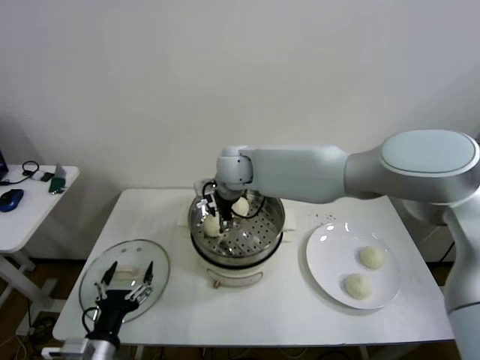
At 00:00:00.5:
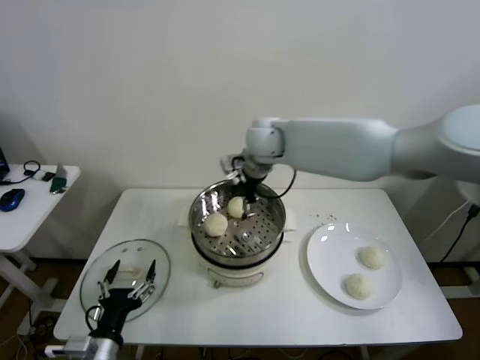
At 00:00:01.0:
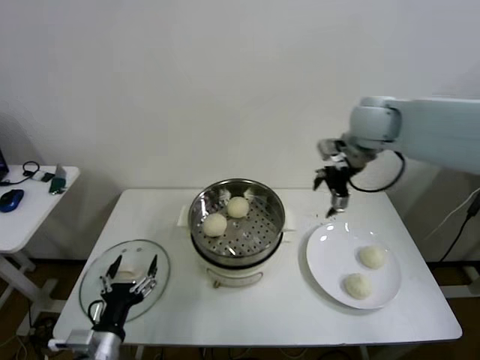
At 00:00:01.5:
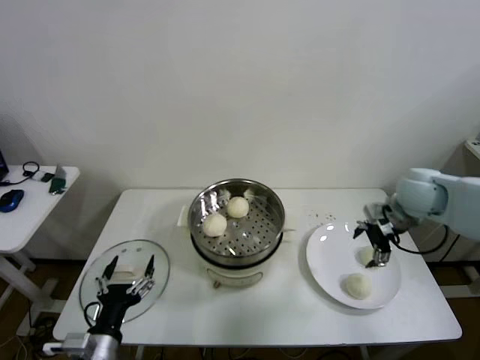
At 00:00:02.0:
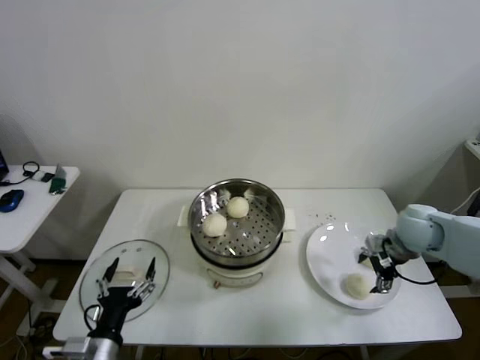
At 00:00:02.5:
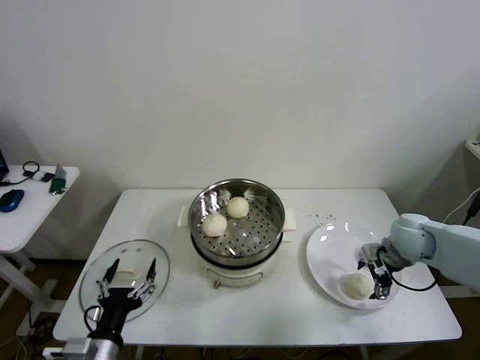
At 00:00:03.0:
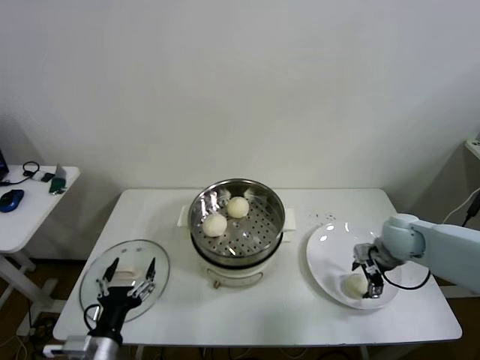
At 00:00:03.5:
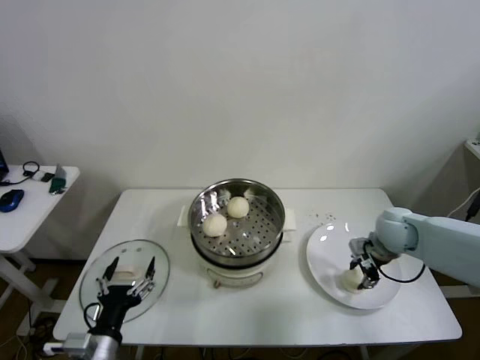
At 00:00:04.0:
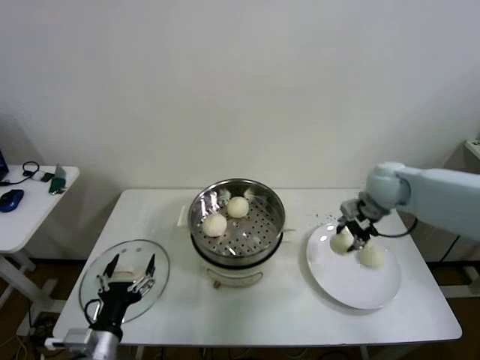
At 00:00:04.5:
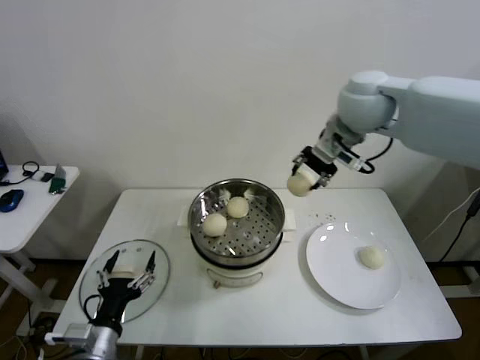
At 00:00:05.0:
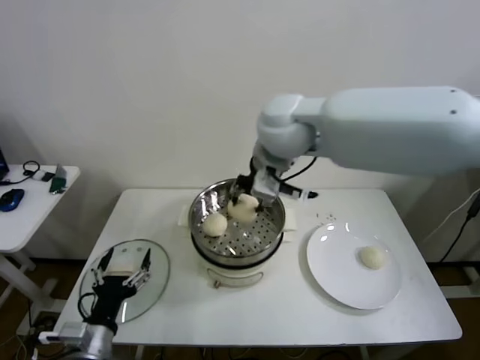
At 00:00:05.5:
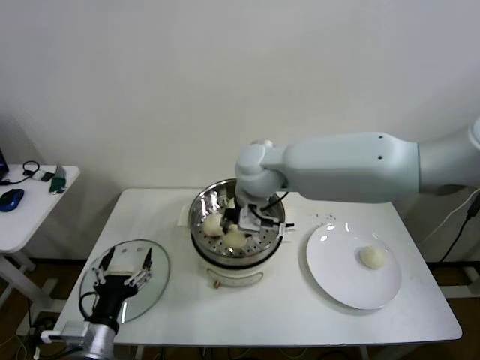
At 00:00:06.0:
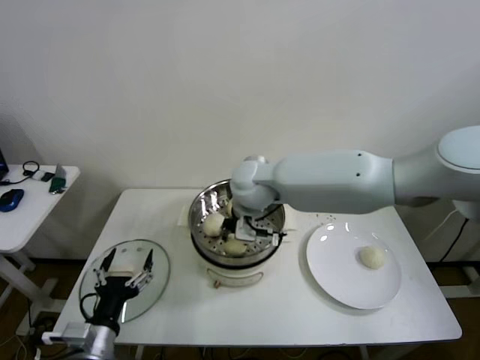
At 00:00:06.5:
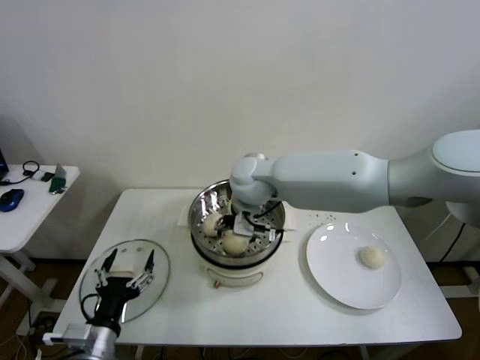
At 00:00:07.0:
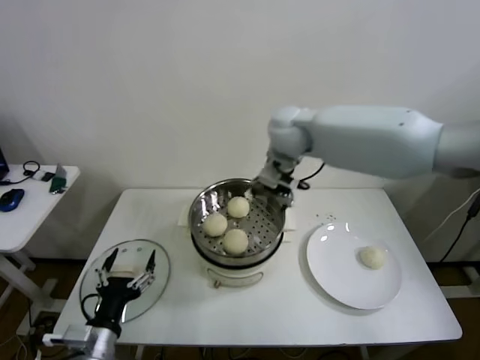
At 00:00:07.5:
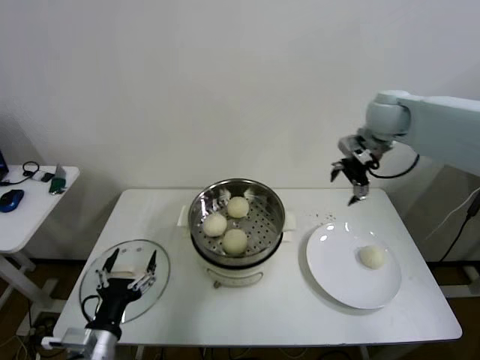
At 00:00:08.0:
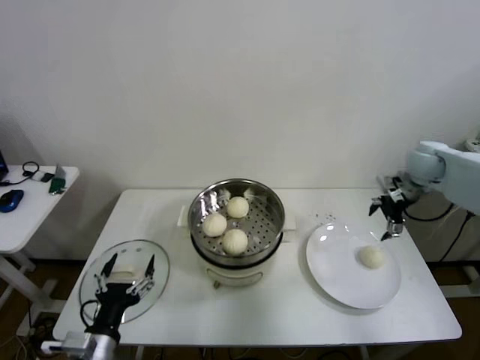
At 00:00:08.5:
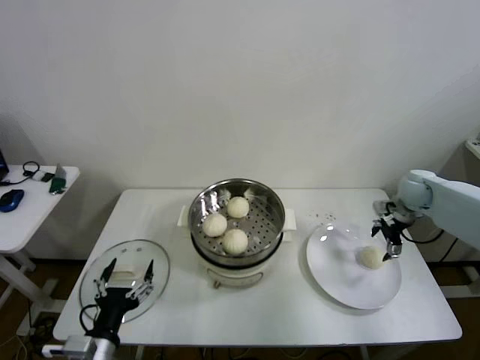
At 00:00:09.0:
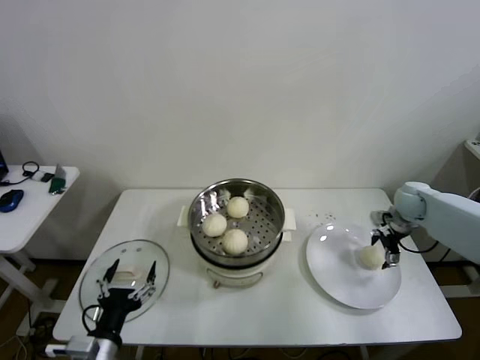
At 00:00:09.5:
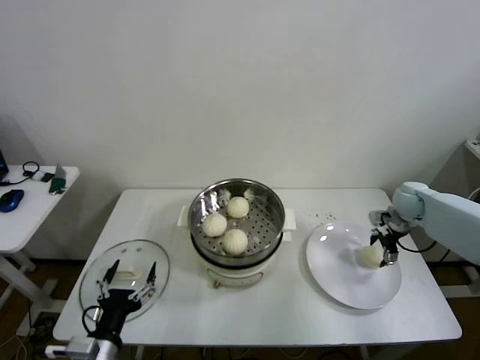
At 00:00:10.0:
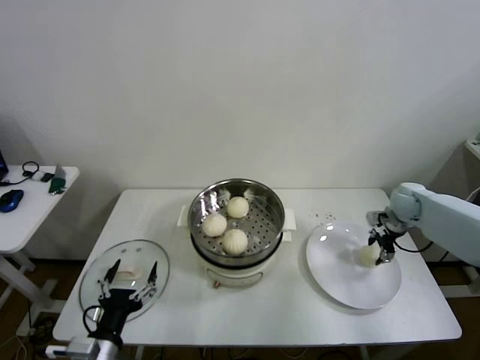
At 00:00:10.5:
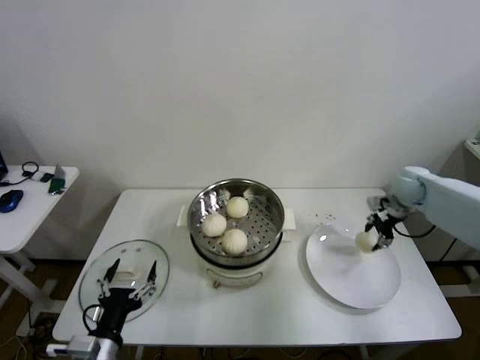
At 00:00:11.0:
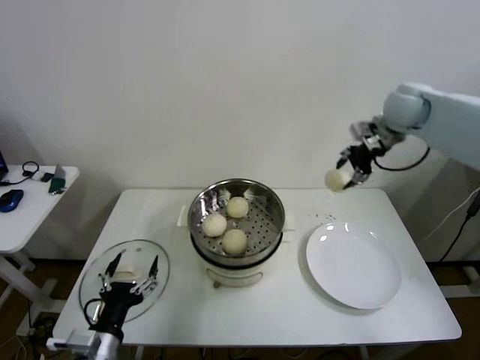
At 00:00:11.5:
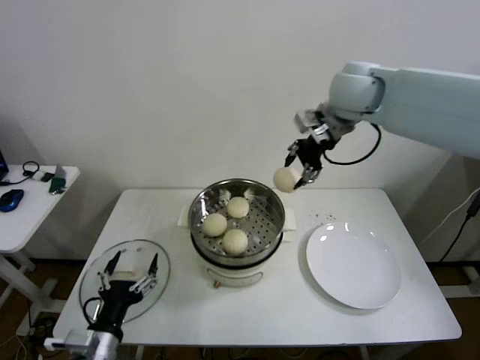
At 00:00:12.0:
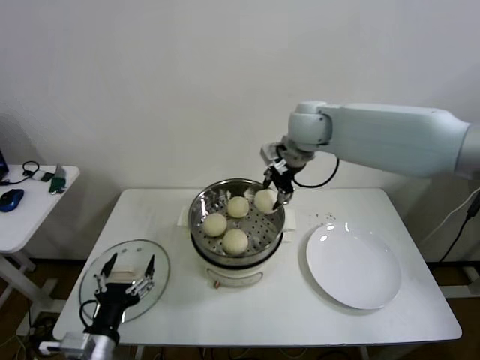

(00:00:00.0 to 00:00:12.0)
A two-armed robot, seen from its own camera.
Step, 00:00:00.0 - 00:00:03.0: Grasp the baozi in the plate with right gripper.
Step, 00:00:03.5 - 00:00:06.0: Place the baozi on the steamer with right gripper.
Step, 00:00:06.5 - 00:00:10.0: Grasp the baozi in the plate with right gripper.
00:00:00.0 - 00:00:02.0: The right gripper shifts about 40 cm to the right.
00:00:02.0 - 00:00:04.0: The right gripper moves upward, forward and to the left, some 15 cm, and closes.
00:00:04.0 - 00:00:06.0: The right gripper goes about 30 cm to the left.
00:00:06.0 - 00:00:08.0: The right gripper is displaced to the right by roughly 40 cm, and opens up.
00:00:08.0 - 00:00:10.0: The right gripper moves downward, approximately 15 cm, and closes.
00:00:10.0 - 00:00:12.0: The right gripper moves to the left and upward, roughly 40 cm.

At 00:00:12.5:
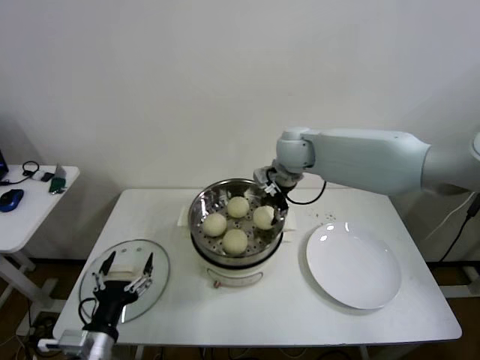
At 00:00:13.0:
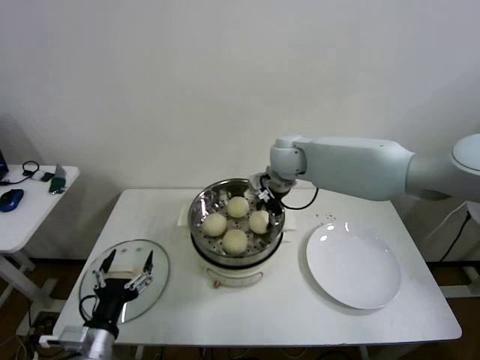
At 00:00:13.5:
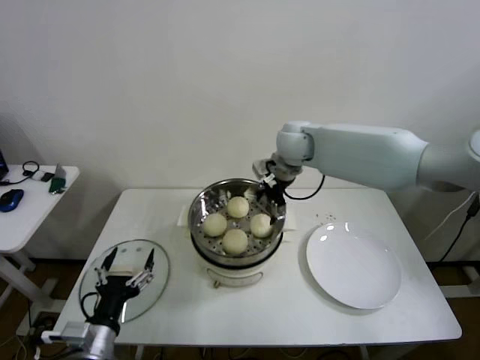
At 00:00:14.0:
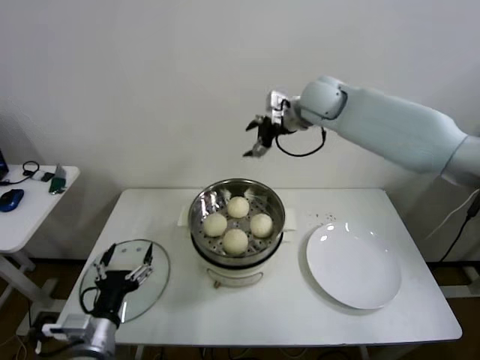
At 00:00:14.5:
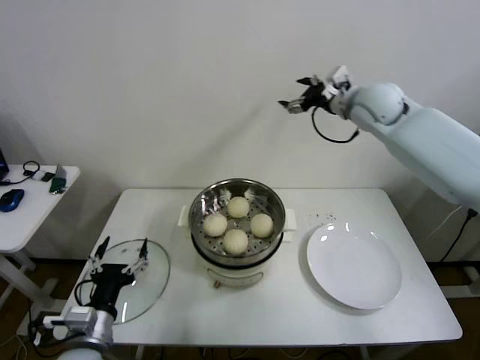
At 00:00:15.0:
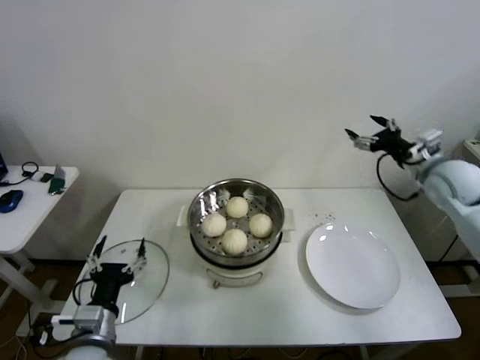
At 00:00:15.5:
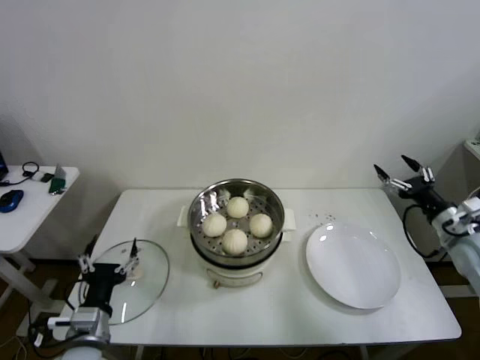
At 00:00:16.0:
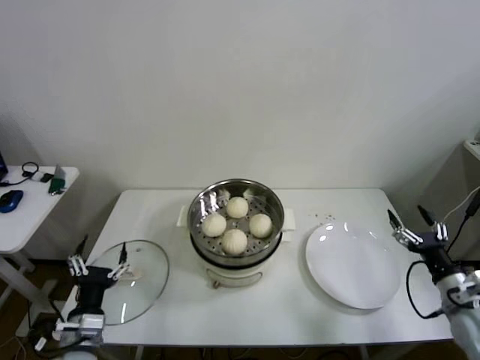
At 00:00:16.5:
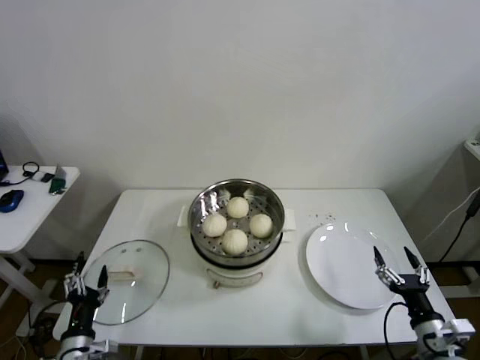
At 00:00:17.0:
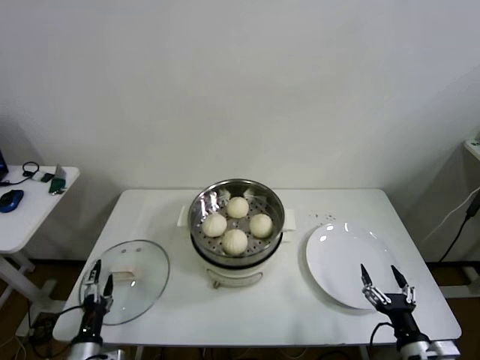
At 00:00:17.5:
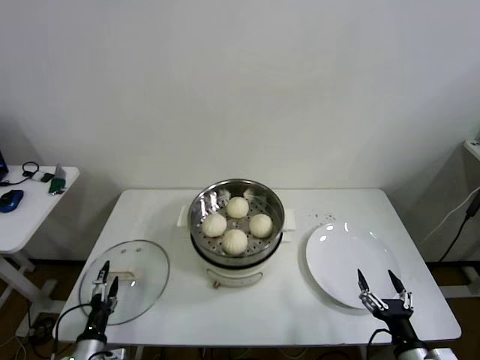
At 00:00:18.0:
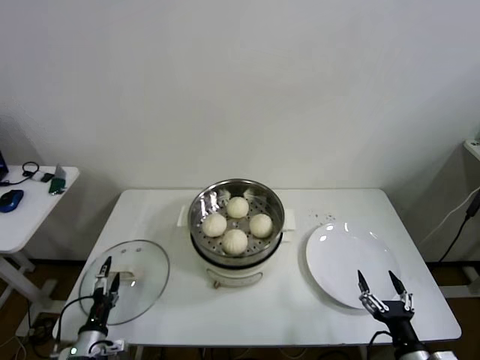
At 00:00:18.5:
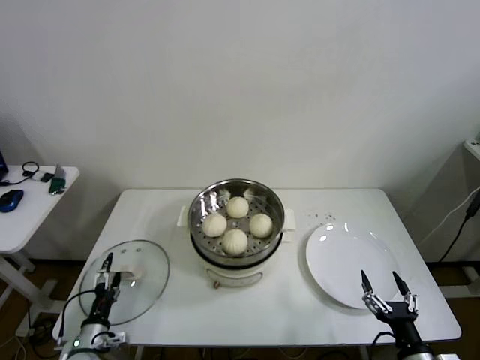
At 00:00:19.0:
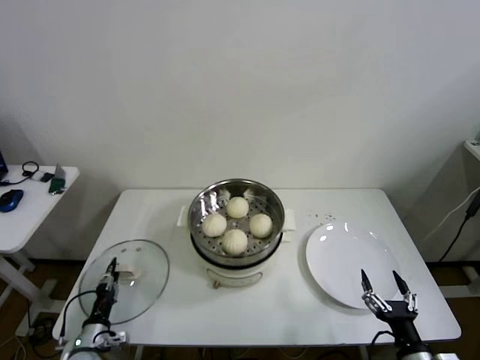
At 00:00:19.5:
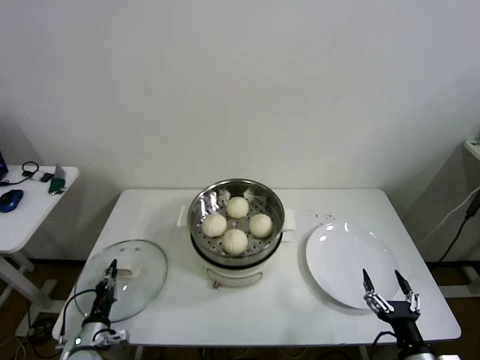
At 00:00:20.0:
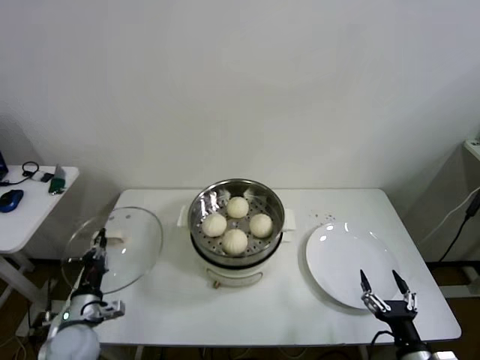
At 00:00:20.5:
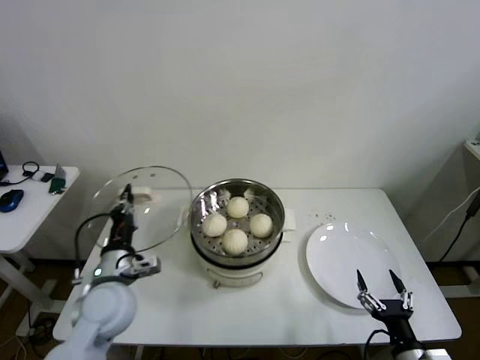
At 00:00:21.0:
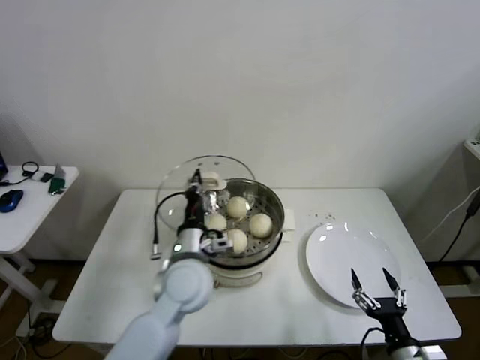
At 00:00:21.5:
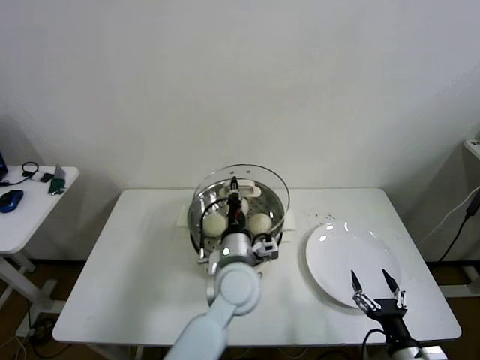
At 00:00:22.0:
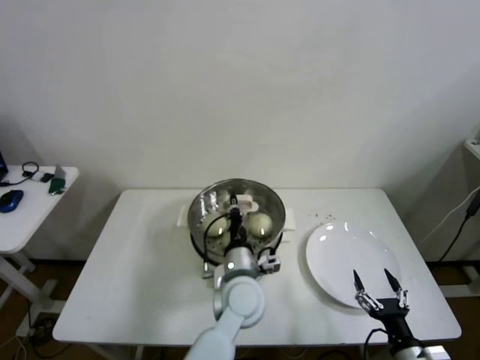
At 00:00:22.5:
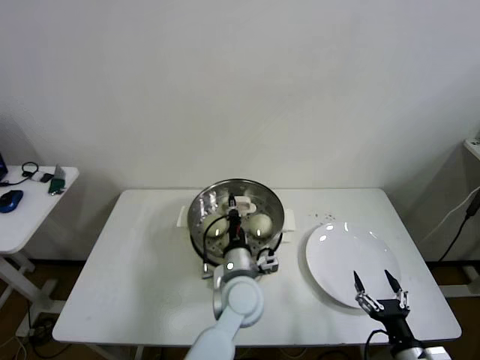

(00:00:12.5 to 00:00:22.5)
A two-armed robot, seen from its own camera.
Step, 00:00:13.5 - 00:00:19.0: Grasp the pot lid with left gripper.
00:00:12.5 - 00:00:14.5: The right gripper moves to the right and upward, about 20 cm, and opens its fingers.
00:00:14.5 - 00:00:16.5: The right gripper heads backward and downward, covering approximately 50 cm, while the left gripper moves downward and to the left, roughly 10 cm.
00:00:16.5 - 00:00:18.5: The right gripper moves backward and to the left, some 10 cm, while the left gripper shifts some 10 cm downward.
00:00:18.5 - 00:00:20.5: The left gripper travels upward and to the right by roughly 25 cm, and closes.
00:00:20.5 - 00:00:22.5: The left gripper is displaced to the right by approximately 25 cm.

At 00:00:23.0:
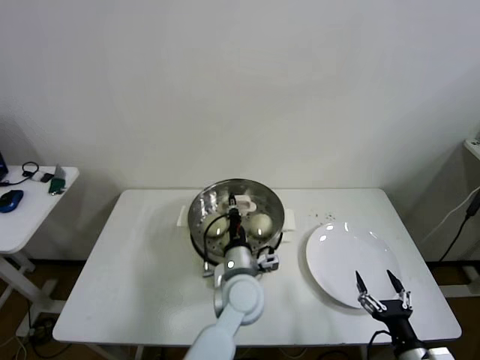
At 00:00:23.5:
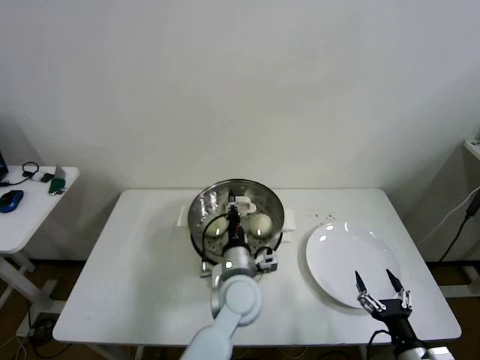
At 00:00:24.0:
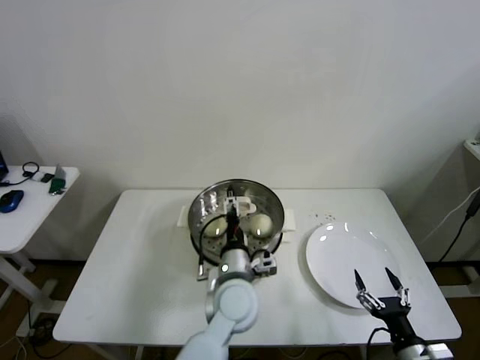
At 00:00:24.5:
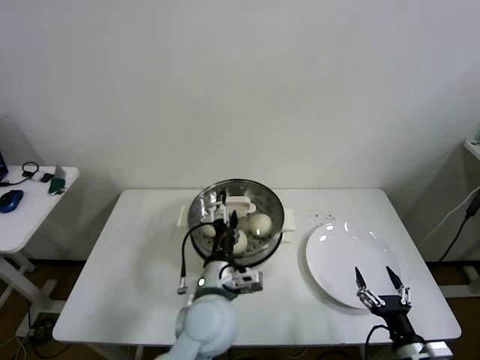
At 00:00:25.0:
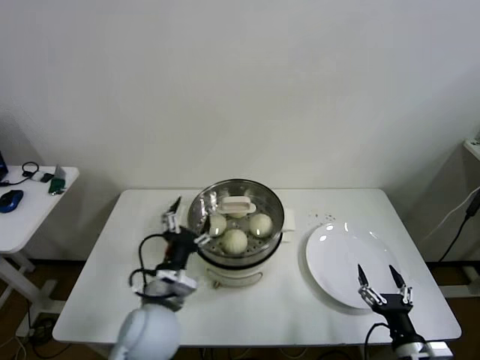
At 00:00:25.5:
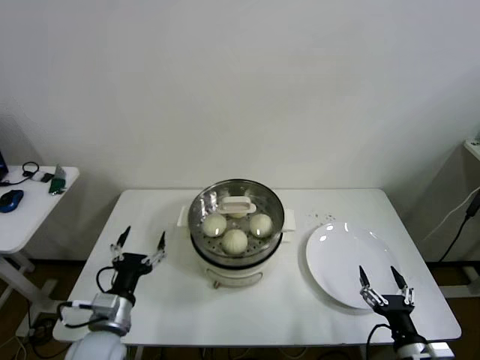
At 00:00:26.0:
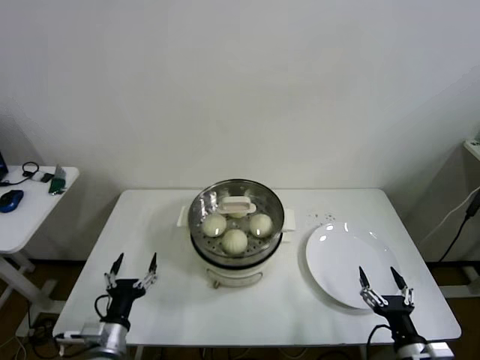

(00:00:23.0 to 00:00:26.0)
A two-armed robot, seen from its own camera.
00:00:23.0 - 00:00:24.5: The left gripper shifts roughly 5 cm backward, and opens its fingers.
00:00:24.5 - 00:00:26.0: The left gripper heads to the left and downward, covering about 25 cm.
